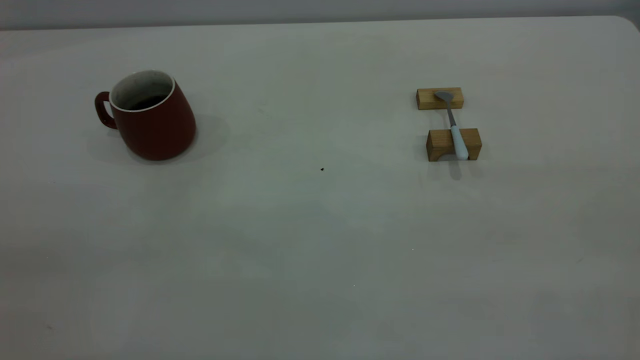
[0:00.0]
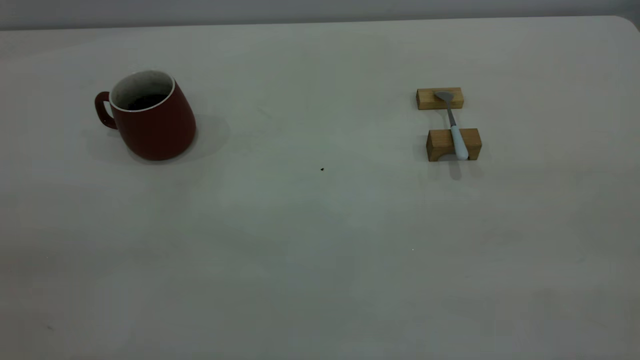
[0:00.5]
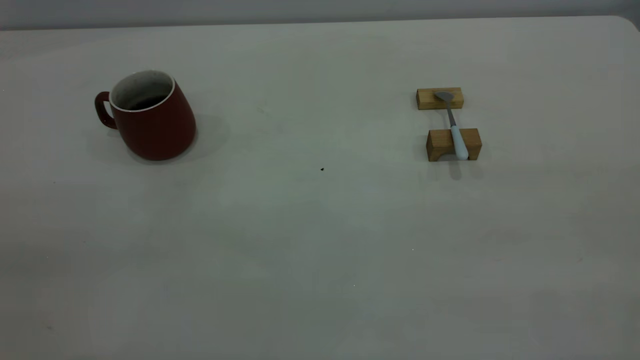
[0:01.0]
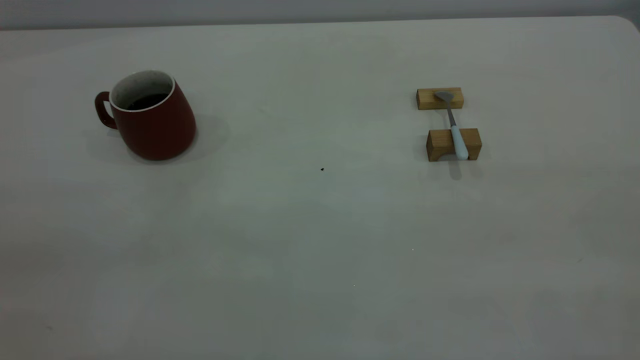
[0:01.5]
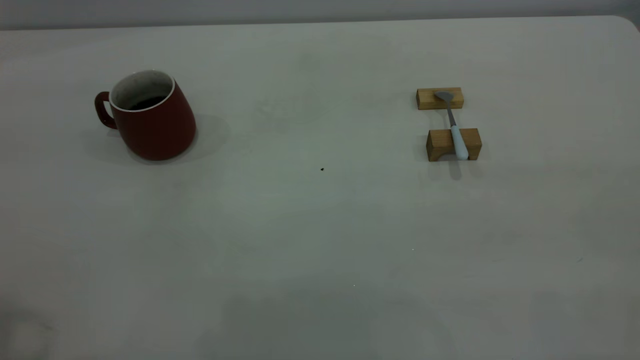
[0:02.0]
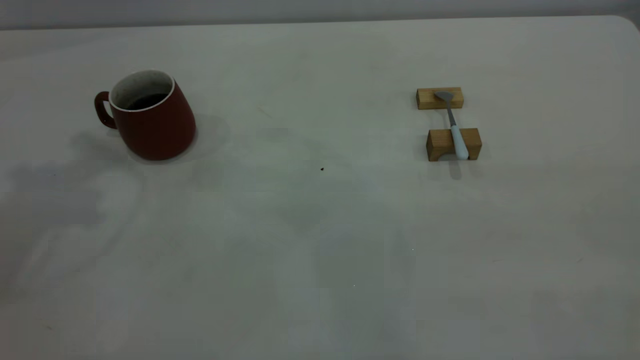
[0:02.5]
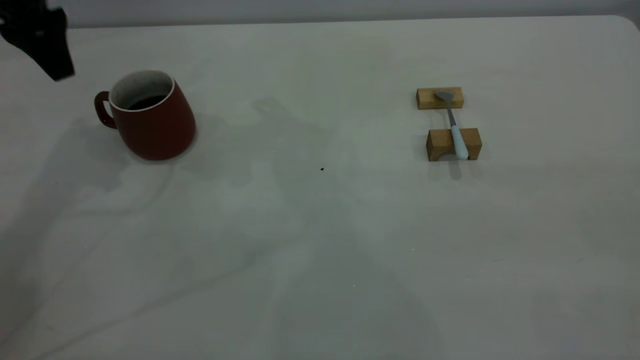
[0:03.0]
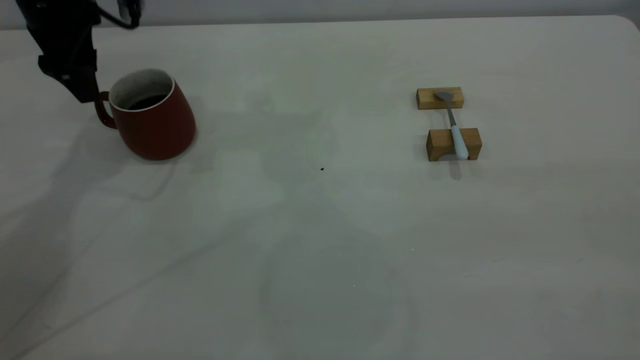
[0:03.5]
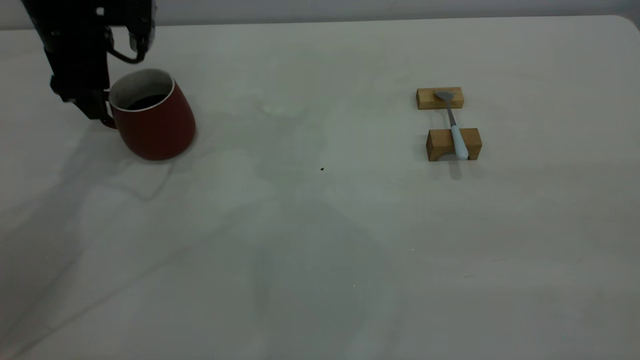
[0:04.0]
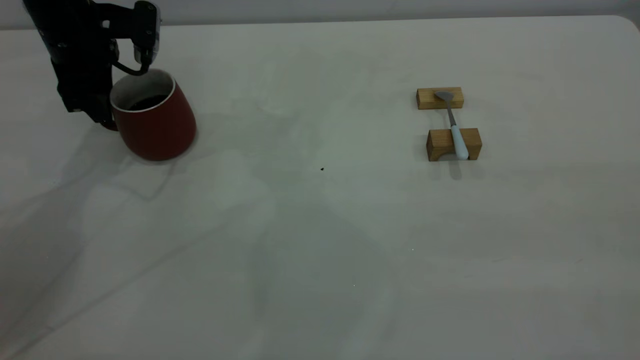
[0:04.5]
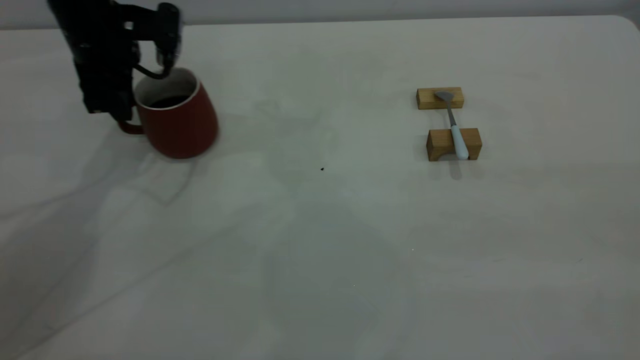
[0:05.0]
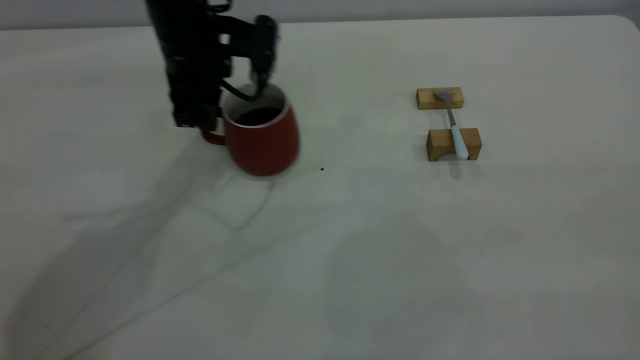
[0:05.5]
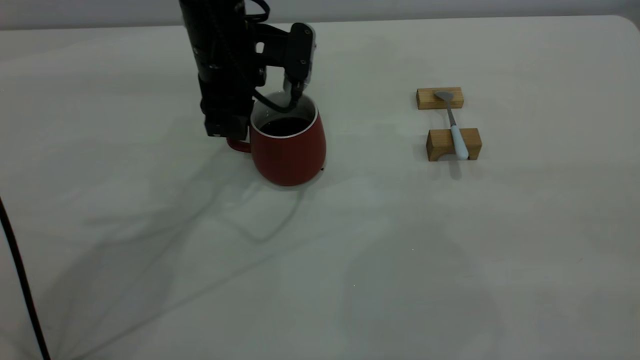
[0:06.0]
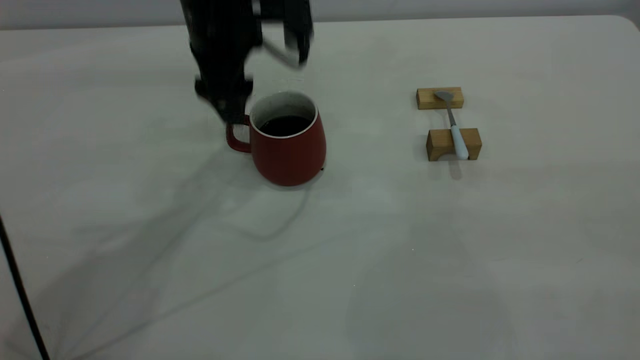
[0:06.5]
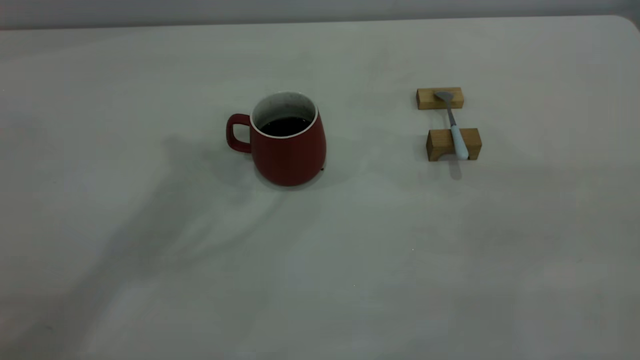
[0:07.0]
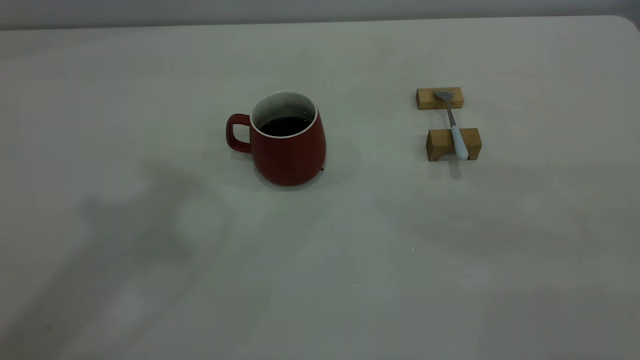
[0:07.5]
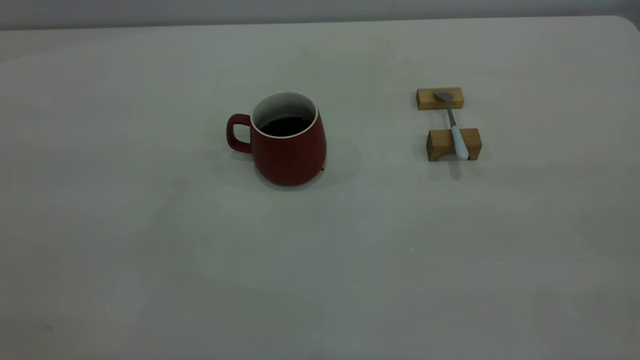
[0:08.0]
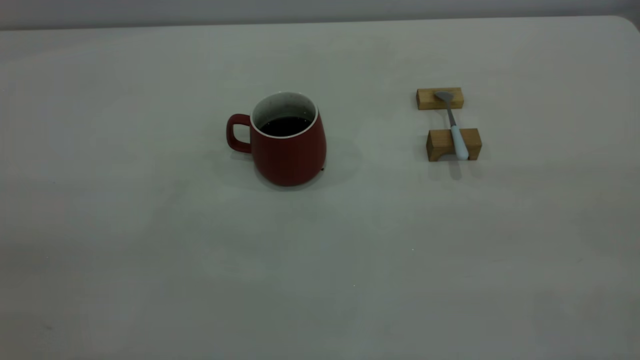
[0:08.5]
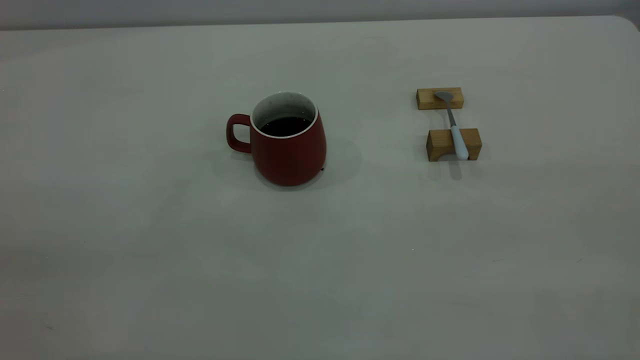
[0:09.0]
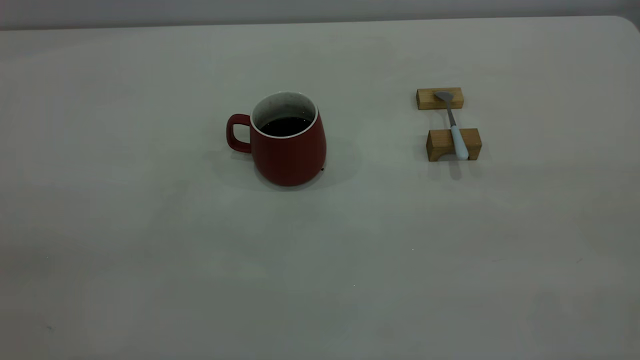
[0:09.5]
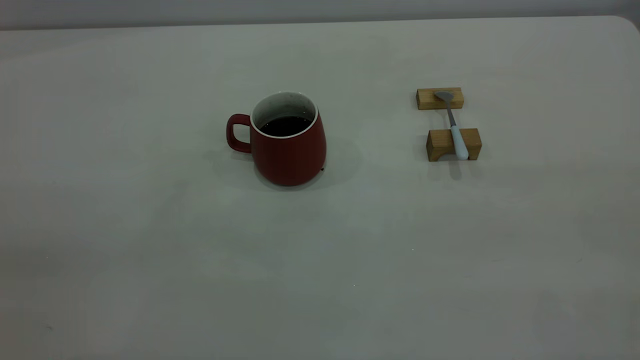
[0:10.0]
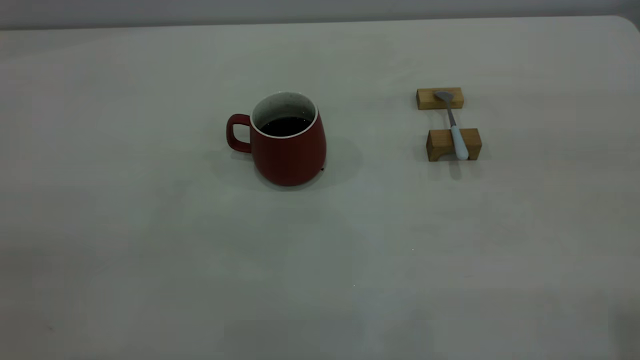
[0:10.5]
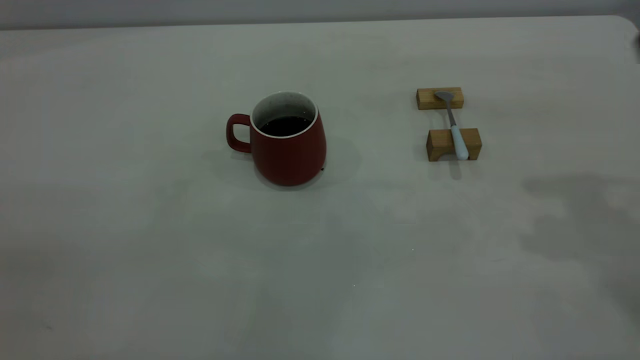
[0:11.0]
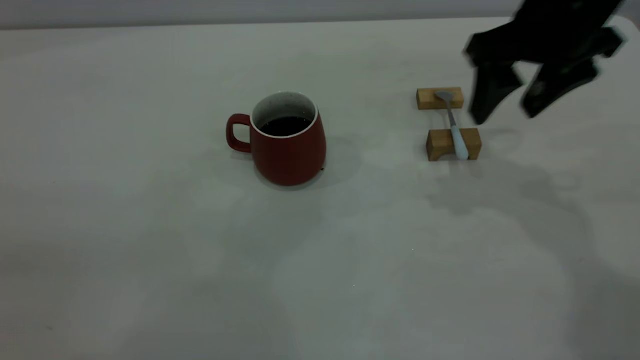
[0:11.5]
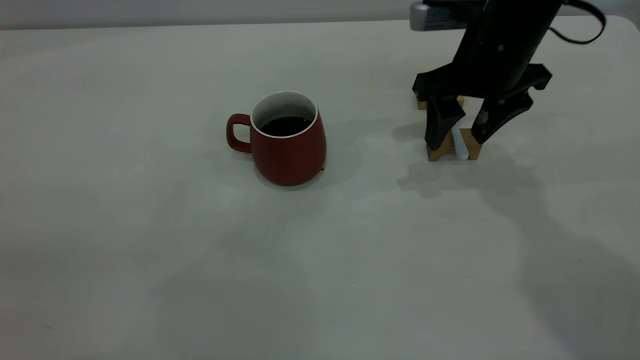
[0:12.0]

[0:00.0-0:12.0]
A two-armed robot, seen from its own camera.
Step, 0:00.0 to 0:06.5: Move the cup with coffee to the center of view.
0:02.0 to 0:04.0: The left gripper goes some 40 cm forward and downward, and opens.
0:04.0 to 0:06.0: The left gripper heads to the right, covering approximately 20 cm, and closes.
0:06.0 to 0:08.0: The left gripper moves backward, upward and to the left, roughly 50 cm, and opens, then closes again.
0:10.0 to 0:12.0: The right gripper is displaced forward and downward by some 40 cm, and opens its fingers.

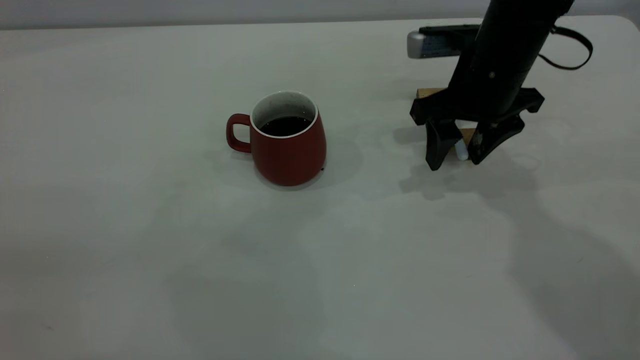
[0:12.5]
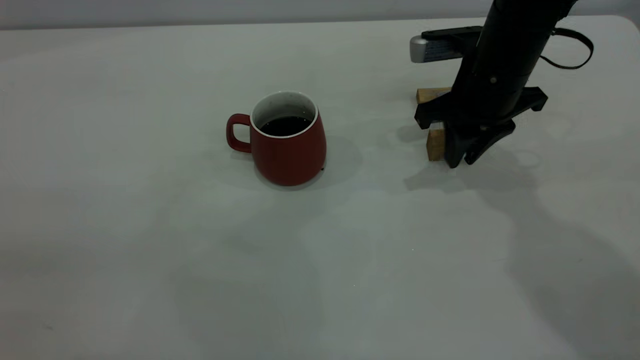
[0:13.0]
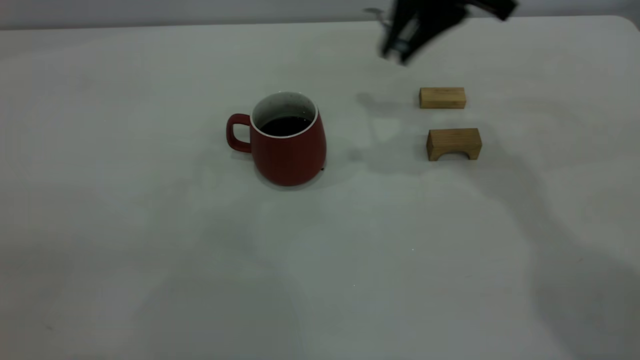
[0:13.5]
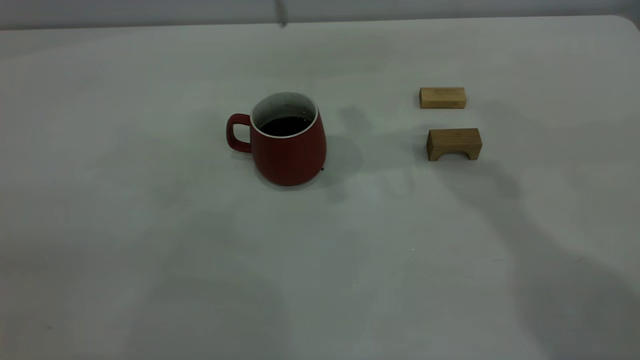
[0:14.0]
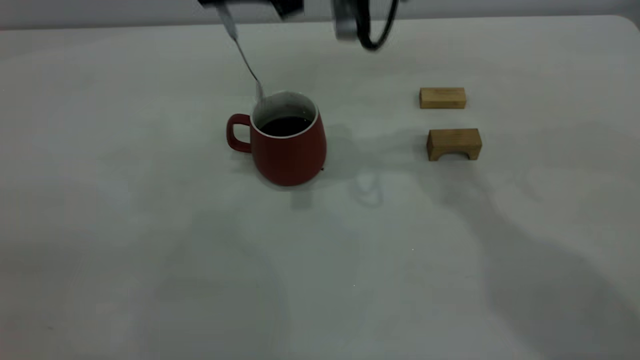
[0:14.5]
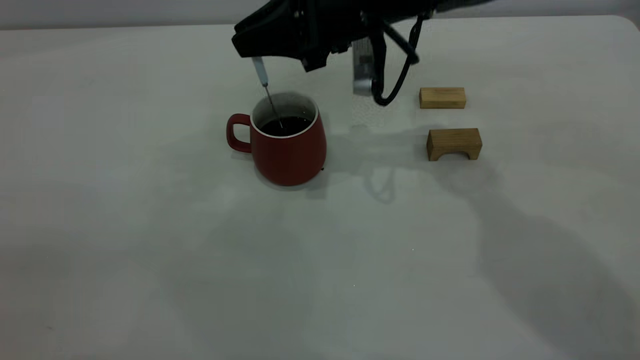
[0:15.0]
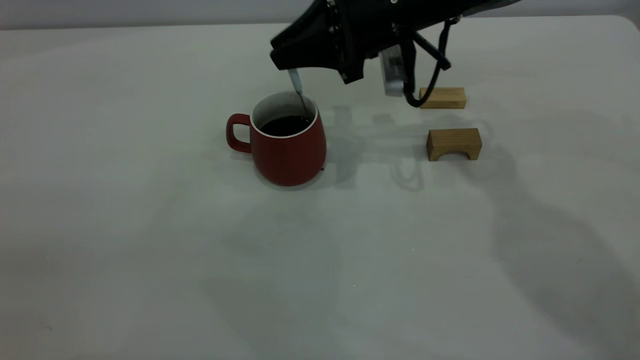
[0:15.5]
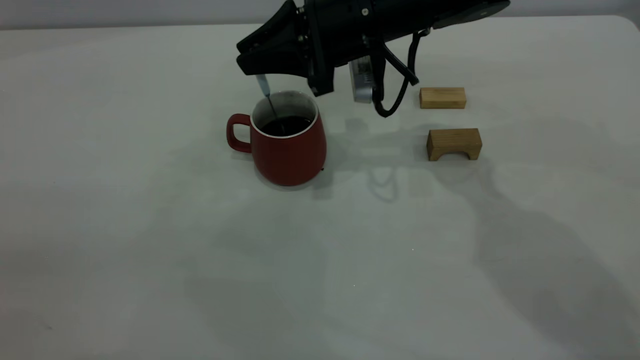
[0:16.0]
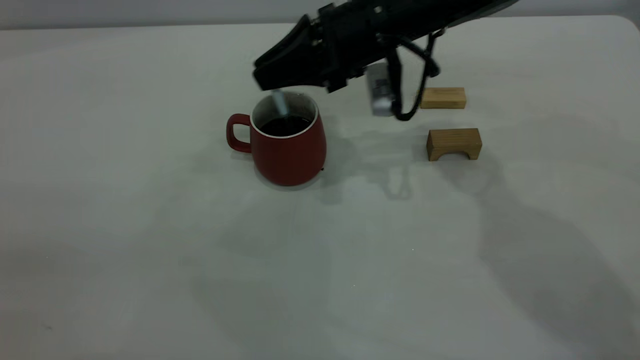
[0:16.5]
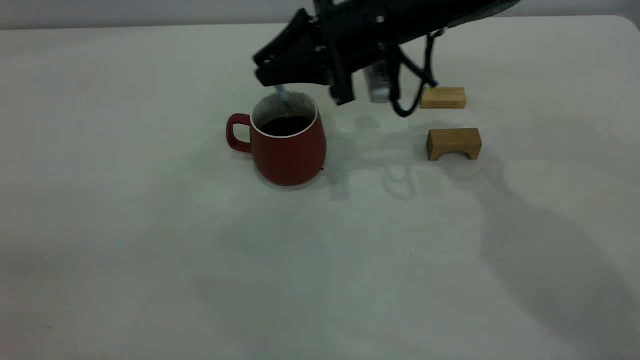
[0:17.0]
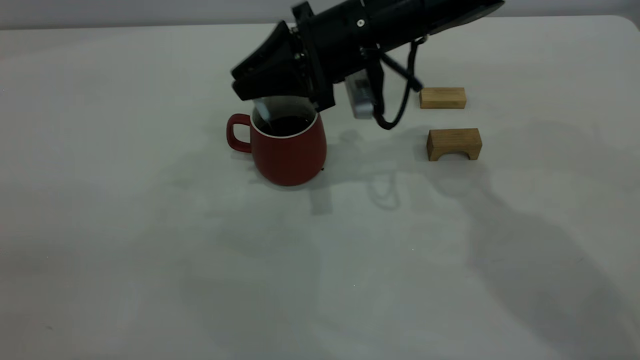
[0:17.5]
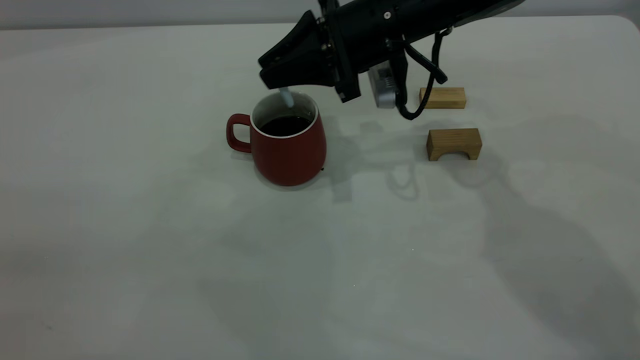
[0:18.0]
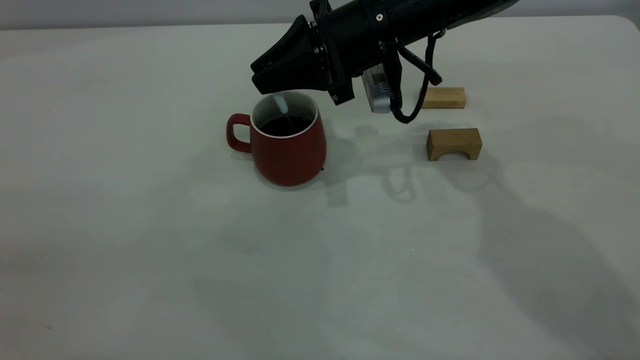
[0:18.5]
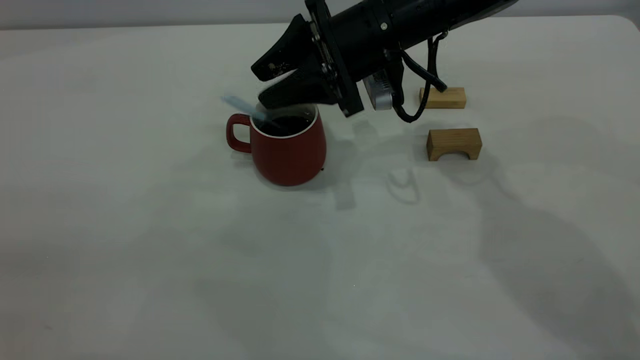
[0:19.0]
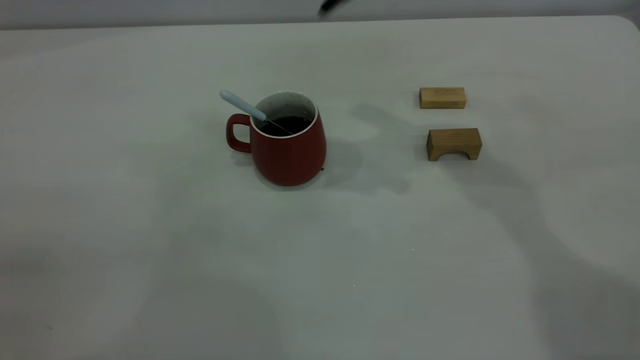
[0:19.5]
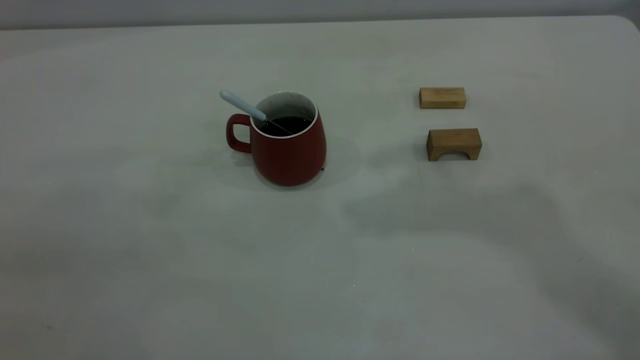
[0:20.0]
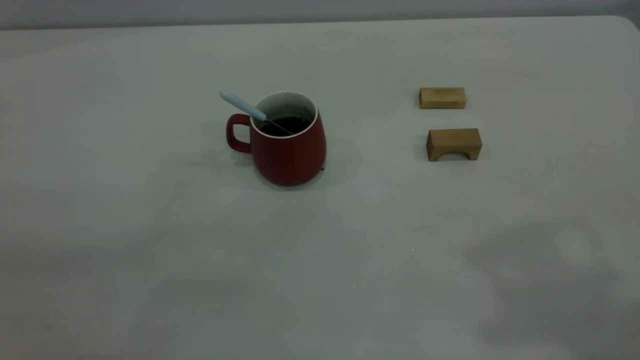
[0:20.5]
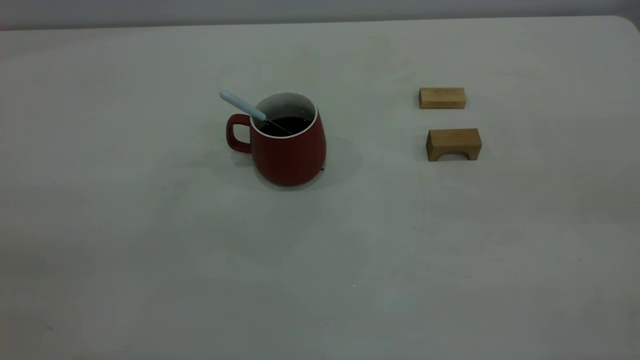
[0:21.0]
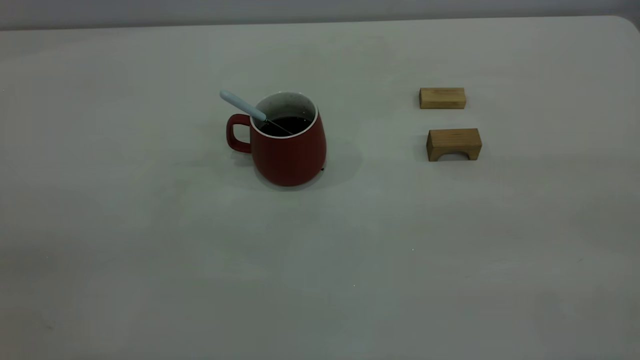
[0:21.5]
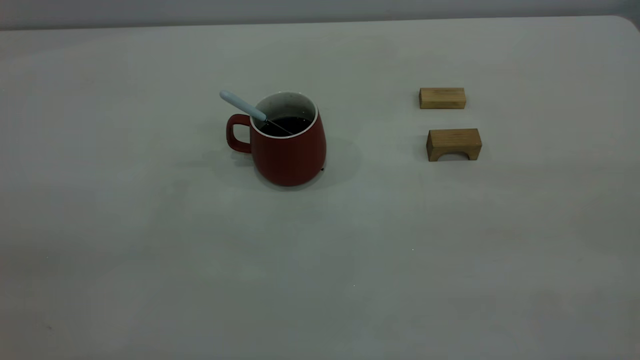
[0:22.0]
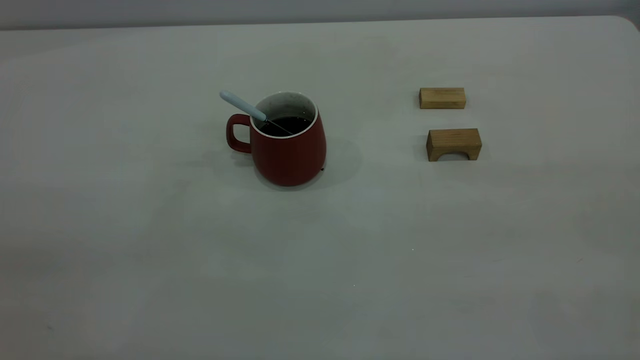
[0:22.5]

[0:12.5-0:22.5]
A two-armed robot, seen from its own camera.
Step, 0:13.5 to 0:18.5: Stir the coffee in the cup.
0:12.5 to 0:14.5: The right gripper goes about 15 cm to the left and upward, and closes up.
0:14.5 to 0:16.5: The right gripper shifts about 10 cm downward.
0:18.5 to 0:20.5: The right gripper goes some 50 cm upward, backward and to the right, and opens its fingers.
